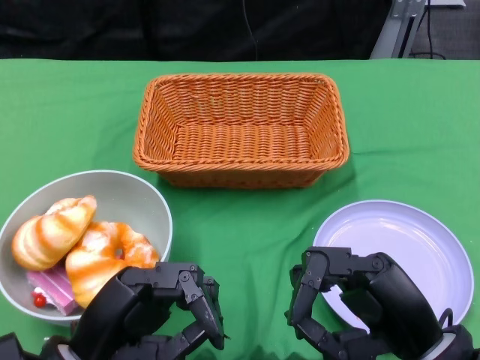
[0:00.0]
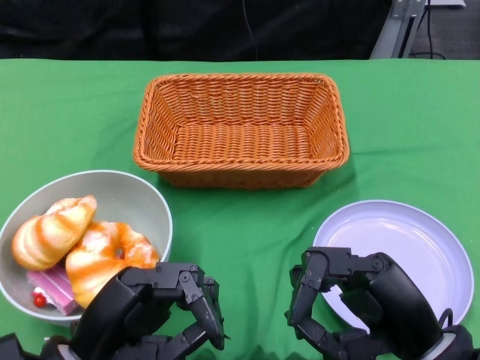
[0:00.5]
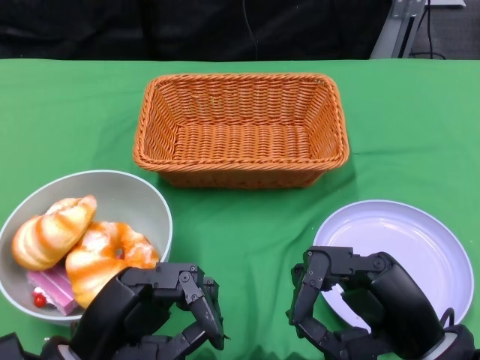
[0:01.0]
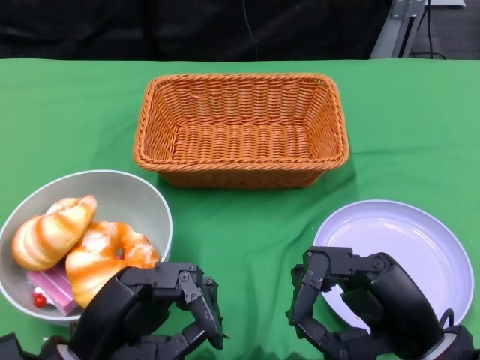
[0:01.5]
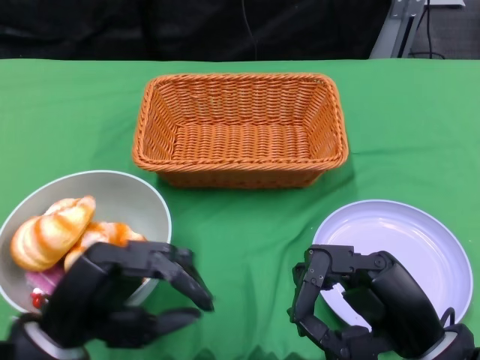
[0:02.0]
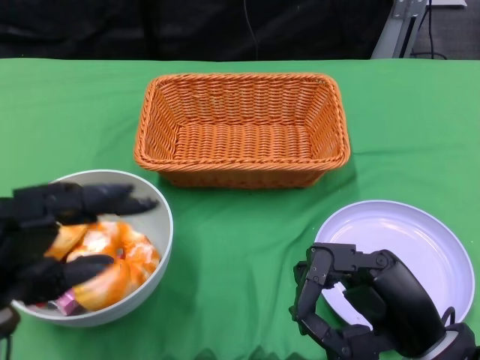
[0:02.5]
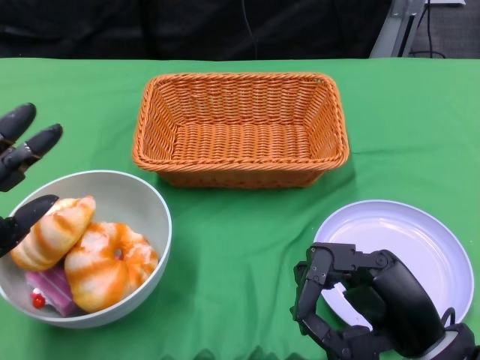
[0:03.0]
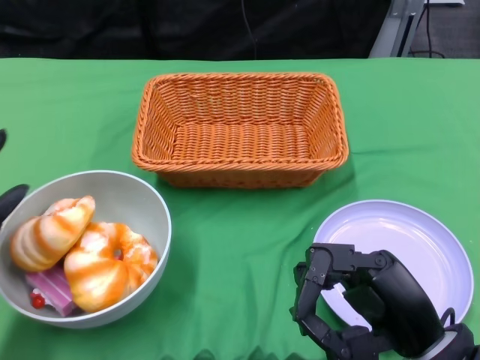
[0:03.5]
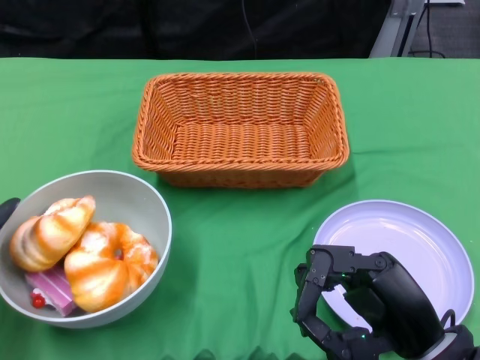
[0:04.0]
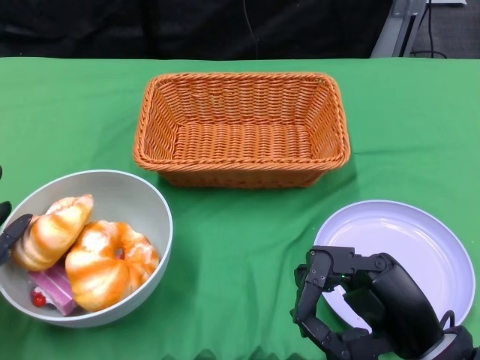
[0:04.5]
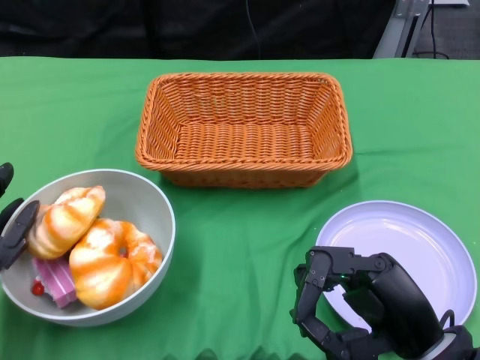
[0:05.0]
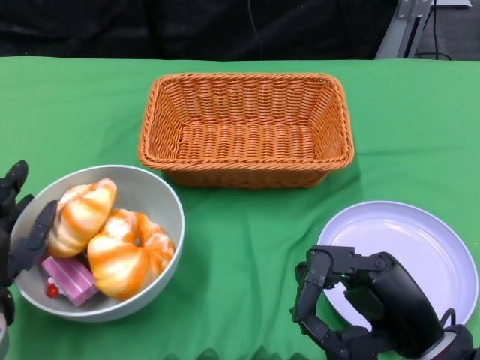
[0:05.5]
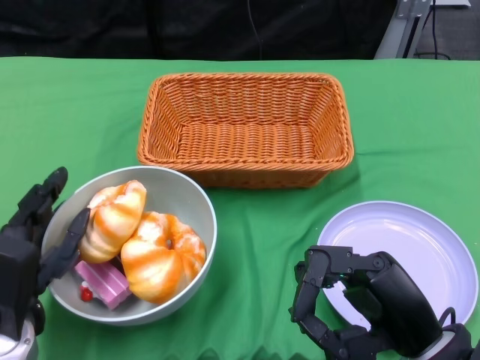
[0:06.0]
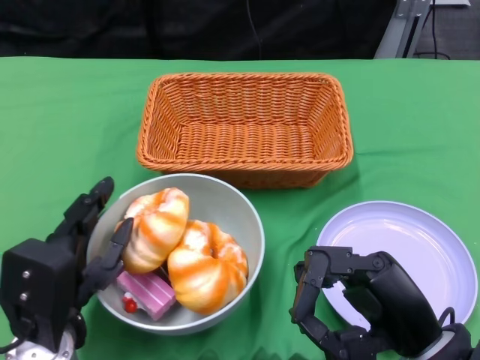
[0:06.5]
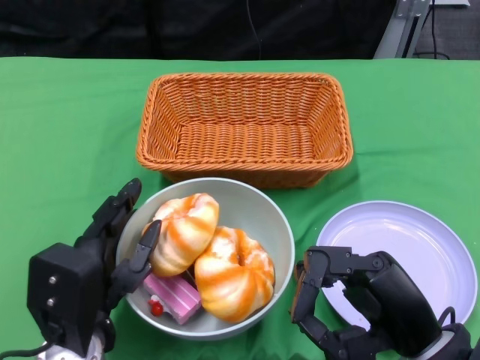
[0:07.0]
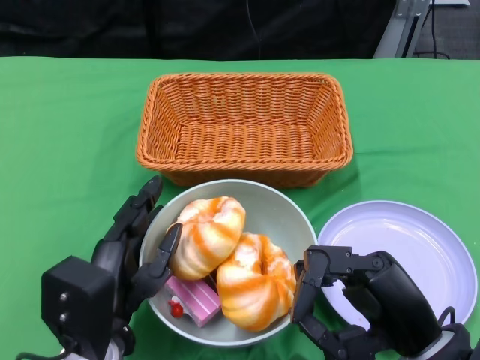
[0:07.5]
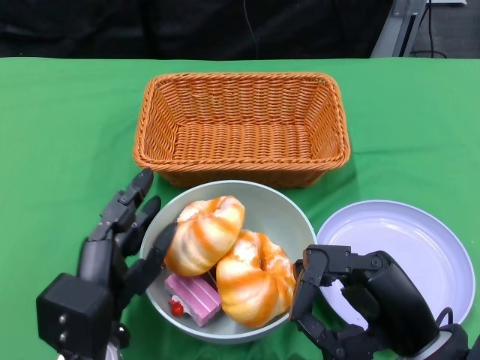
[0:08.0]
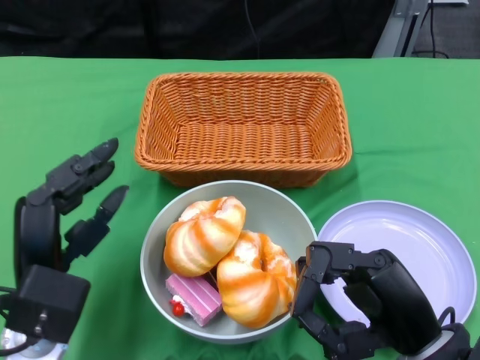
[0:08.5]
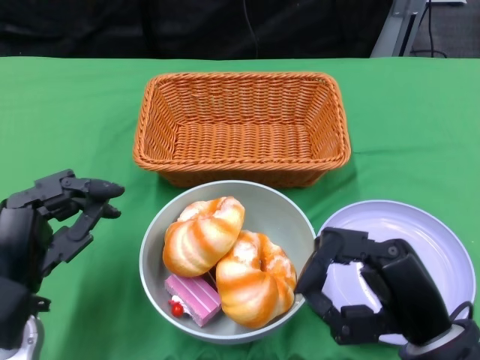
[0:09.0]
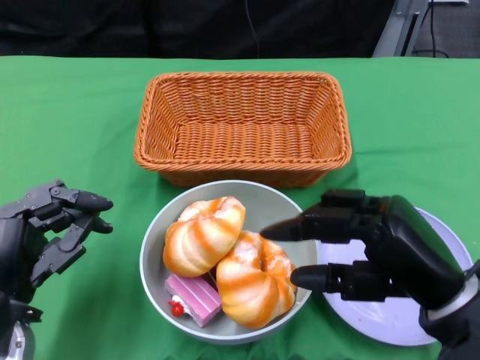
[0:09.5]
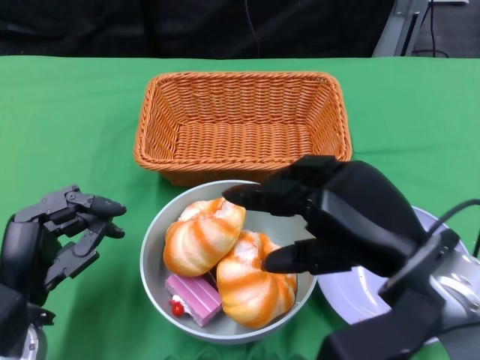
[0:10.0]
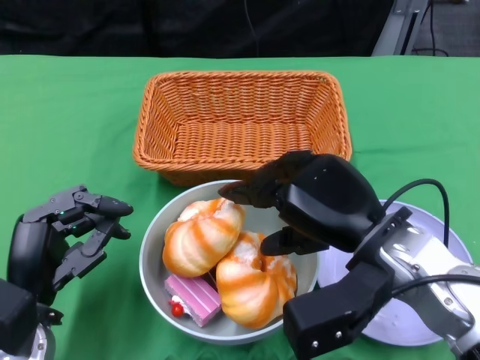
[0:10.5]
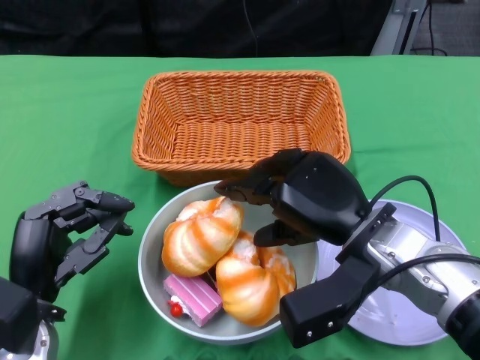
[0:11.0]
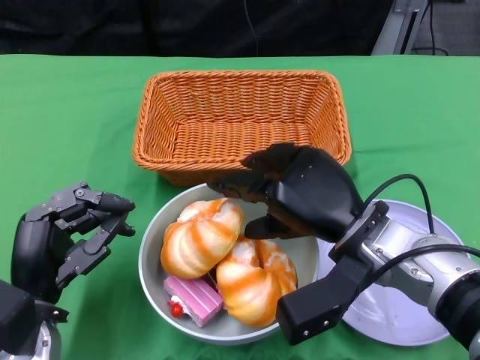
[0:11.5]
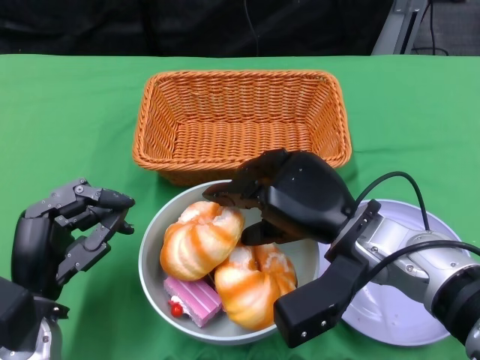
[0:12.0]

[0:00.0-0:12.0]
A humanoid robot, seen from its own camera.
Step, 0:00.0 to 0:08.0: Push the bowl to the center of the table using the left gripper.
0:02.0 to 0:04.0: The left hand is displaced to the left by about 10 cm.
0:04.0 to 0:06.0: The left hand goes some 5 cm to the right.
0:06.0 to 0:08.0: The left hand moves to the right, roughly 10 cm.
0:08.0 to 0:10.0: The left hand goes some 5 cm to the left. The right hand goes roughly 10 cm upward.
0:10.0 to 0:12.0: The right hand shifts about 10 cm forward and downward.

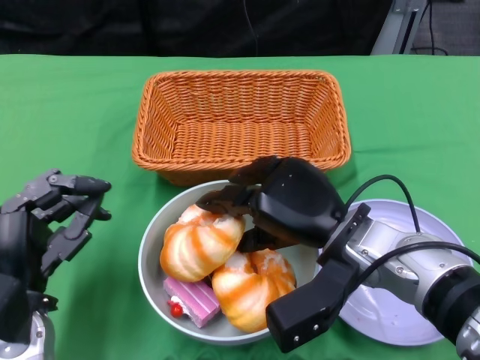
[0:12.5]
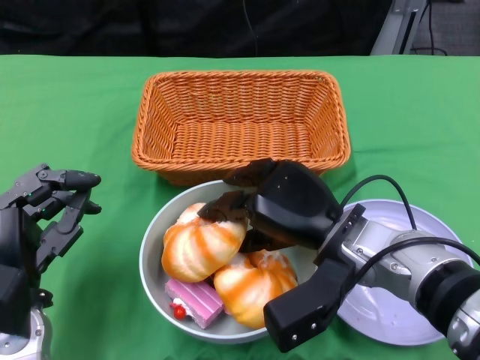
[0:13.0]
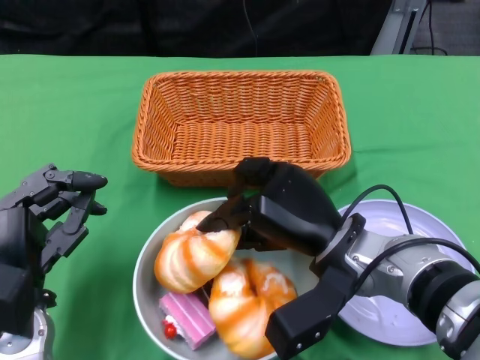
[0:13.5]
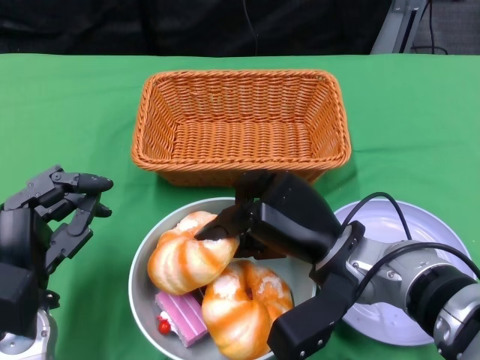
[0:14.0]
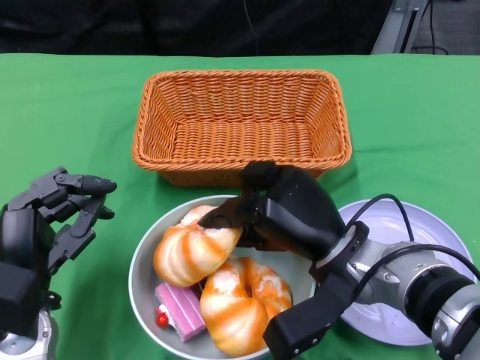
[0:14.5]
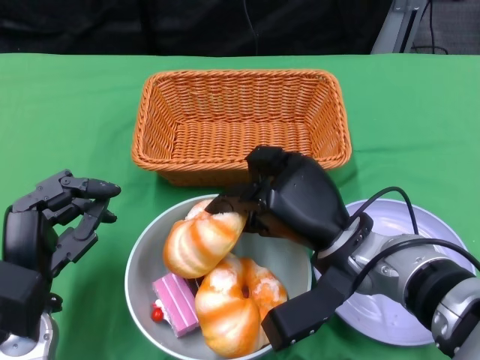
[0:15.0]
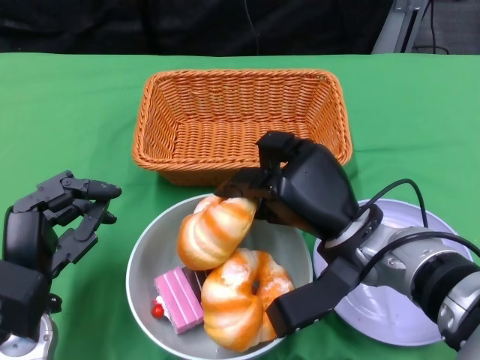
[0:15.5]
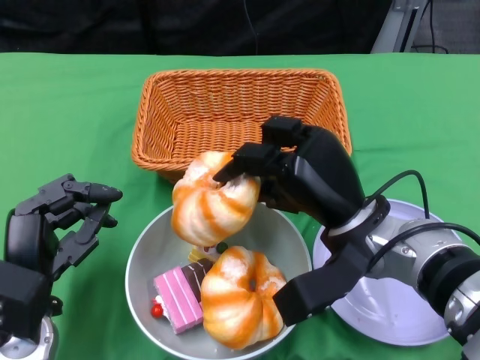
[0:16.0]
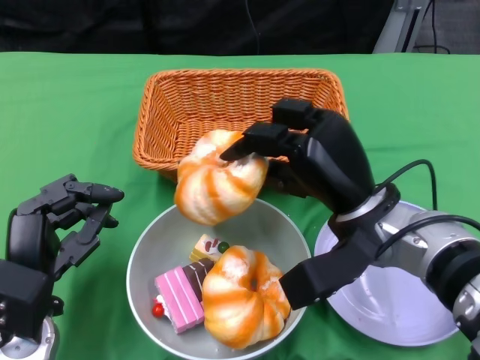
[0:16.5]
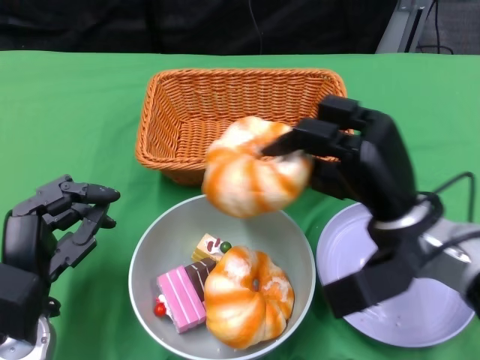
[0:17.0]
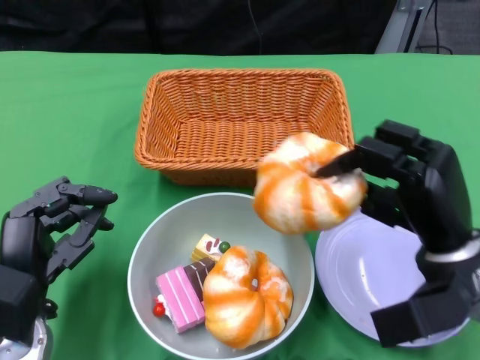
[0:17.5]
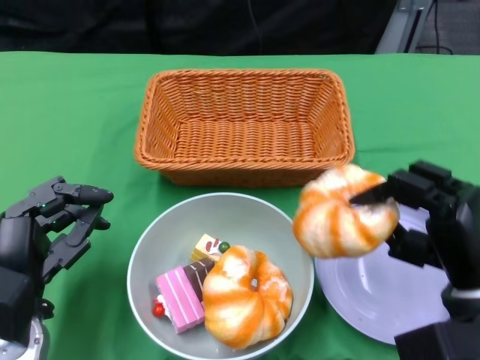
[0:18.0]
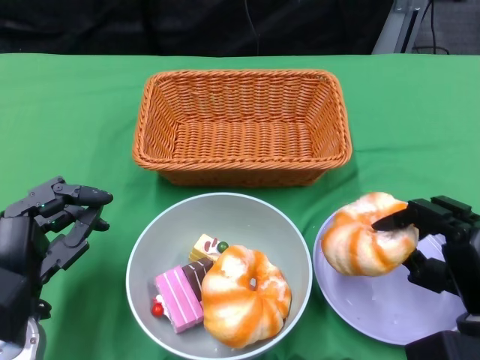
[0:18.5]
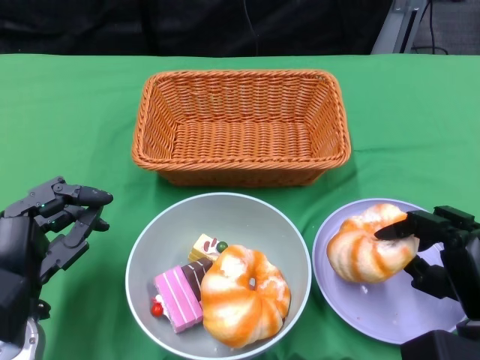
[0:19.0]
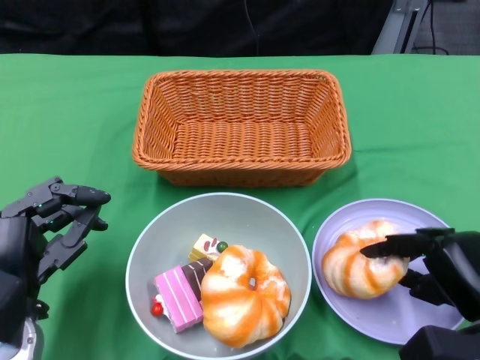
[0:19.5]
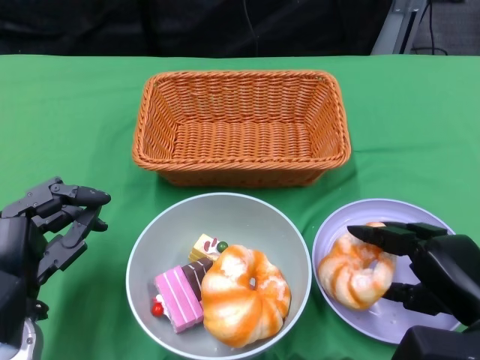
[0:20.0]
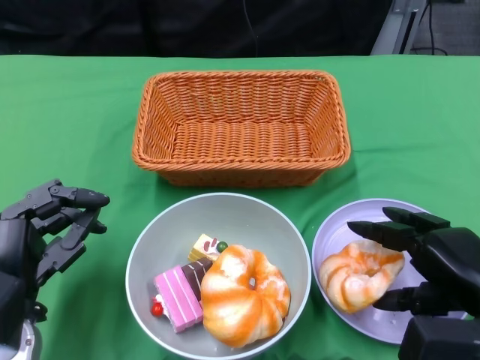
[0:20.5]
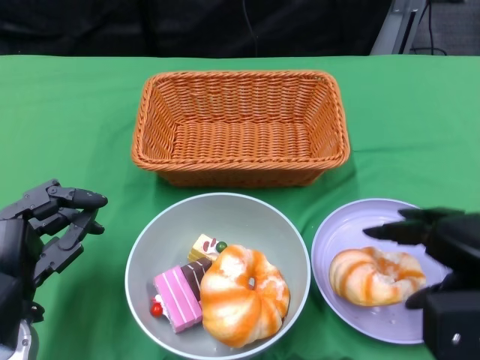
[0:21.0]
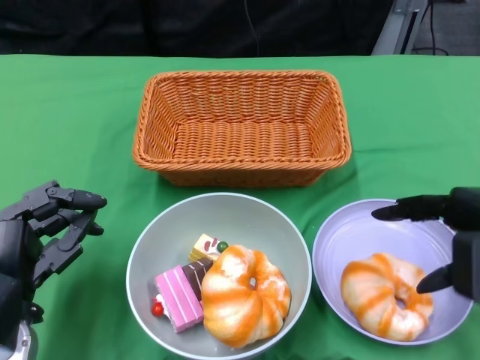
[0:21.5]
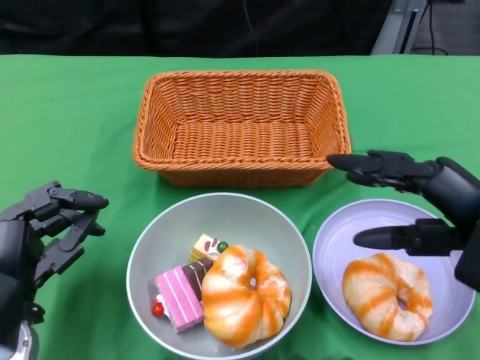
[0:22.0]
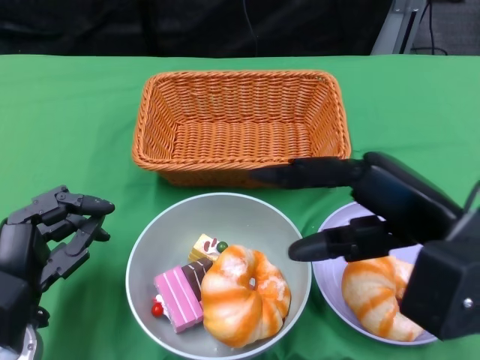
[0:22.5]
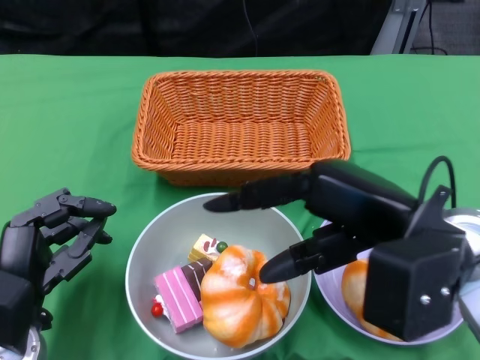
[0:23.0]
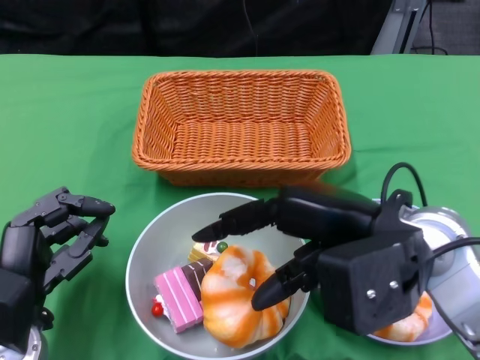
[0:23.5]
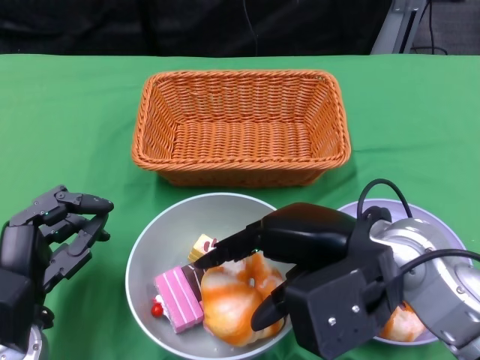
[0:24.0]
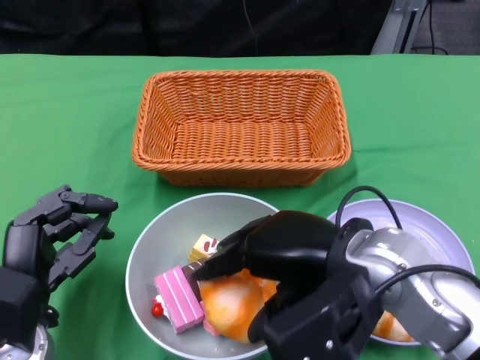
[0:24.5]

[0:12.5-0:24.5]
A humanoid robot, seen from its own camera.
Step, 0:12.5 to 0:21.0: Pick up the bread with the right gripper and place it on the plate.
0:16.5 to 0:18.5: The right hand is displaced to the right, backward and downward by about 15 cm.
0:20.5 to 0:22.5: The right hand shifts roughly 10 cm upward and to the left.
0:22.5 to 0:24.5: The right hand shifts roughly 10 cm to the left.

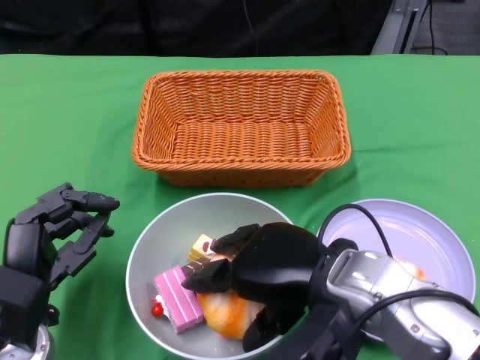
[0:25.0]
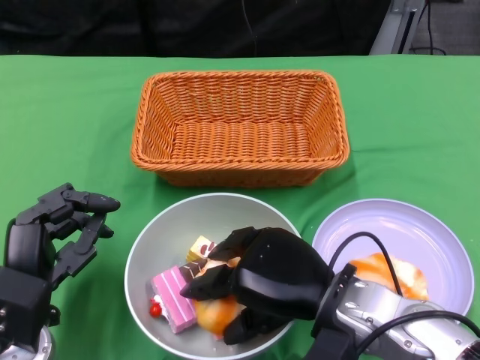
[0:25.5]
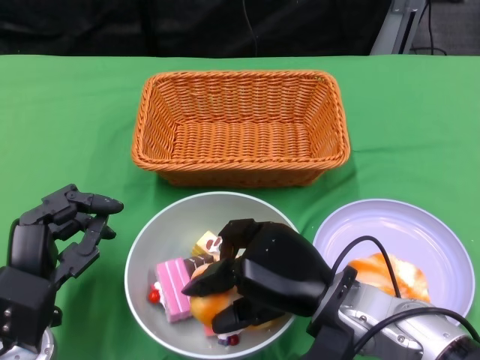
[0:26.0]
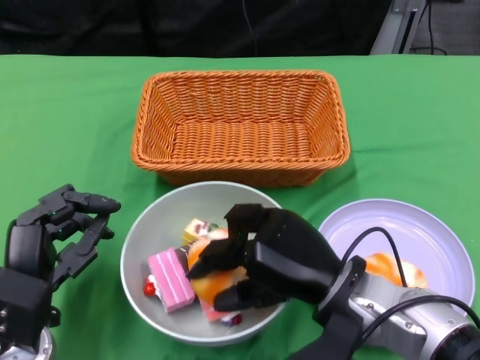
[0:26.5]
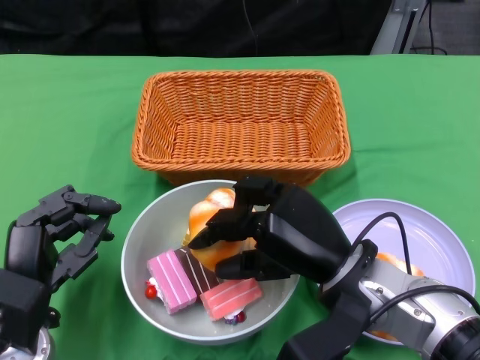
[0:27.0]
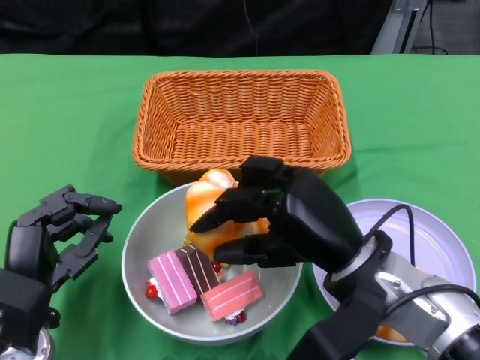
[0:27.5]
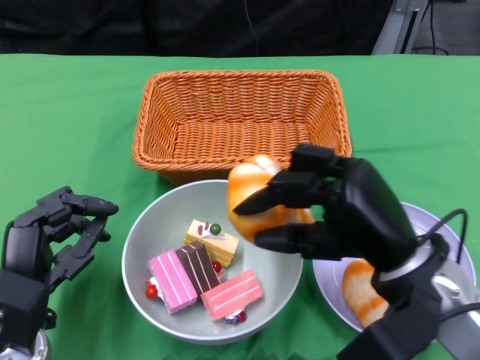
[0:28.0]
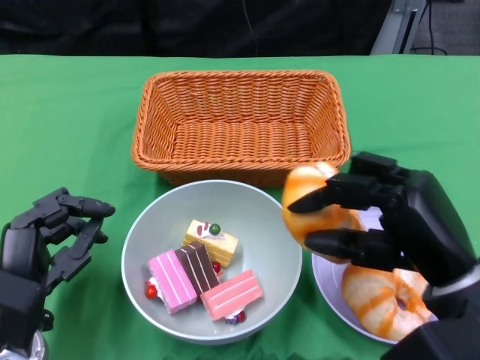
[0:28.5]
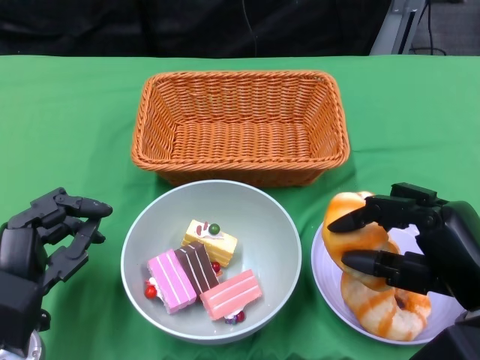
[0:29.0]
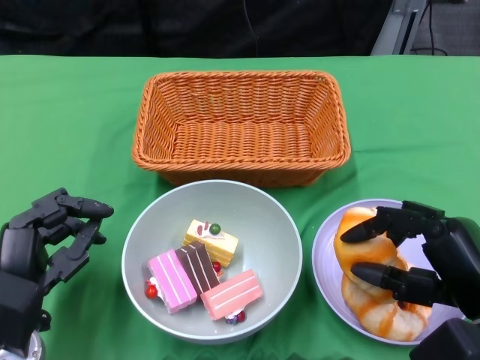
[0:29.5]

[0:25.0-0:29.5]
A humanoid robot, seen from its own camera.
0:27.0 to 0:29.5: The right hand travels to the right and backward by roughly 15 cm.
